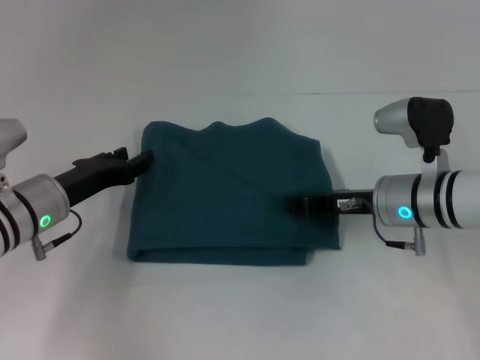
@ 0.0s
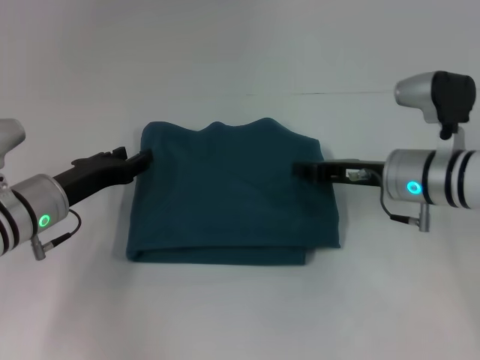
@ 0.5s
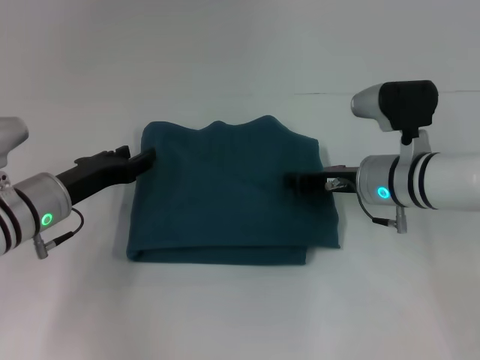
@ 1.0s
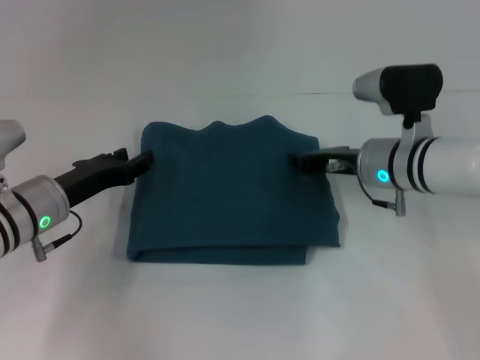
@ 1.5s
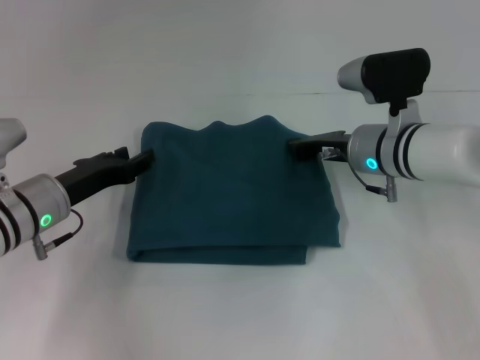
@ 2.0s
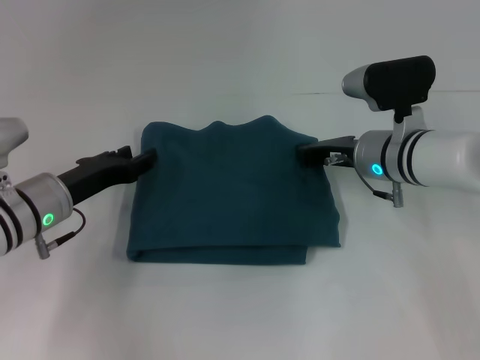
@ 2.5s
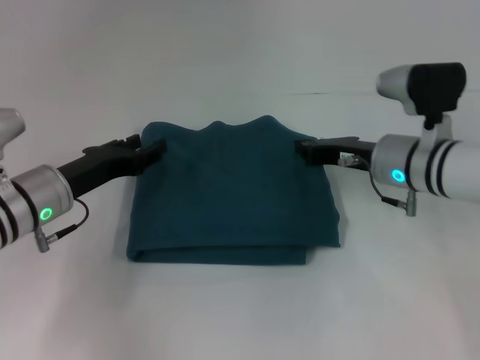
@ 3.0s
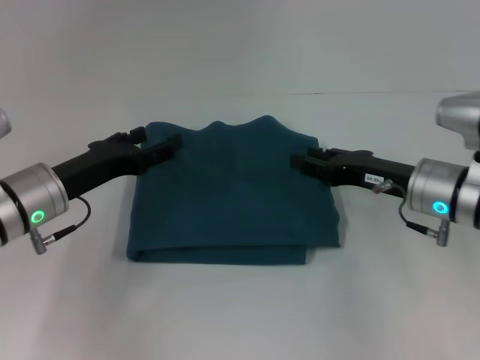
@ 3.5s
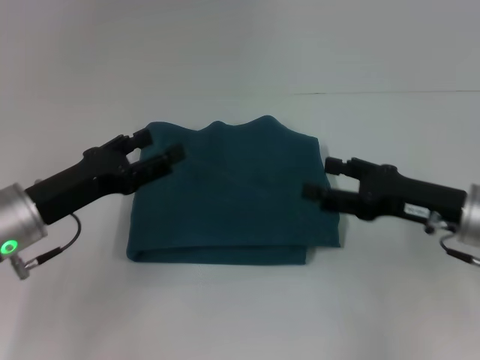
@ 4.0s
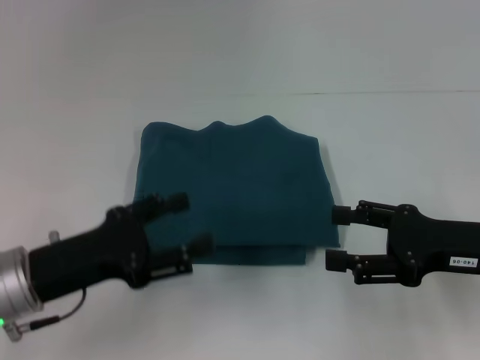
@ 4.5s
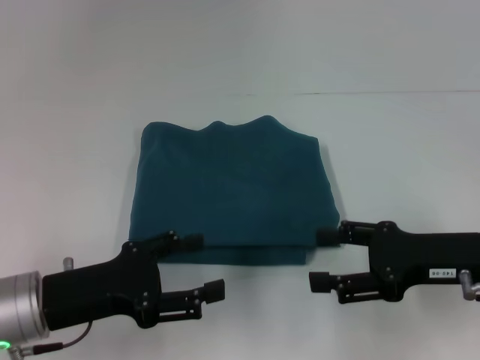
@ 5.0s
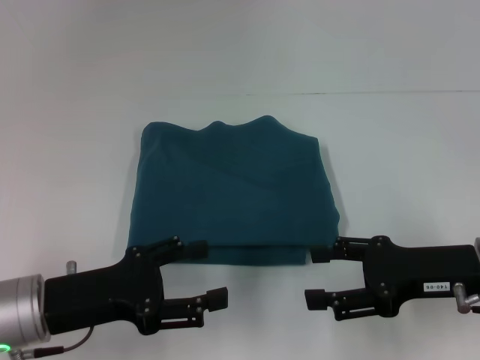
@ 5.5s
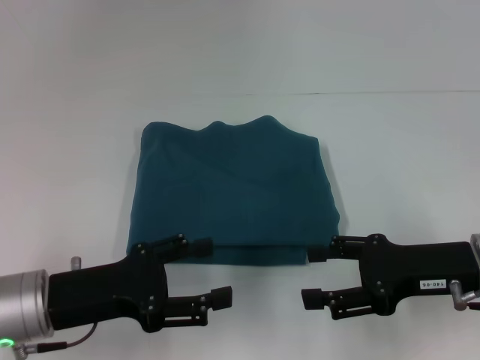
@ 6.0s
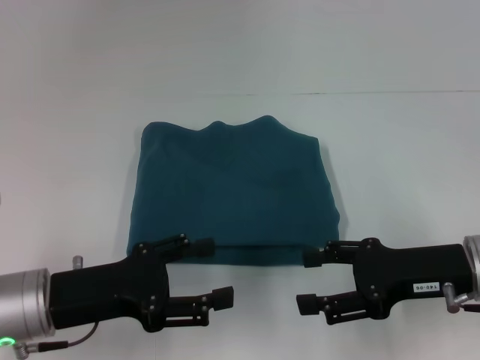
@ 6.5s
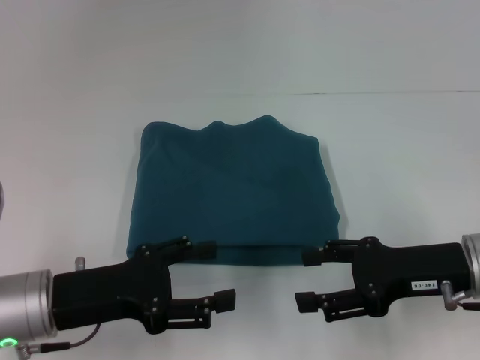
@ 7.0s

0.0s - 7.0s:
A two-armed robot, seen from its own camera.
0.0s - 2.0s: The right gripper ends up roughly 5 cm from where it was.
2.0s - 3.5s: The right gripper moves backward and to the right, about 10 cm.
3.5s - 5.0s: The grippers both shift backward by some 10 cm. The right gripper opens.
5.0s - 7.0s: The grippers move only a little.
